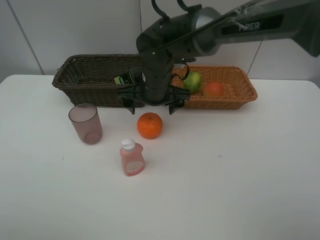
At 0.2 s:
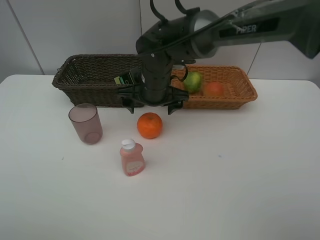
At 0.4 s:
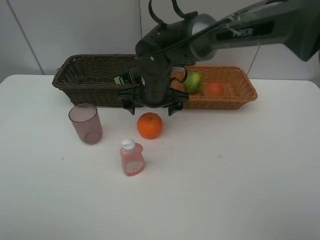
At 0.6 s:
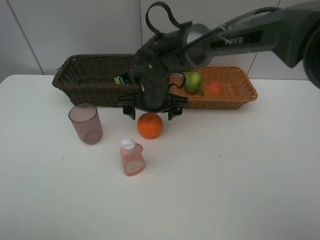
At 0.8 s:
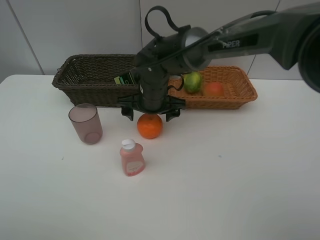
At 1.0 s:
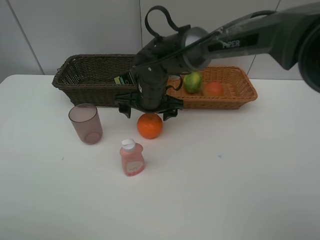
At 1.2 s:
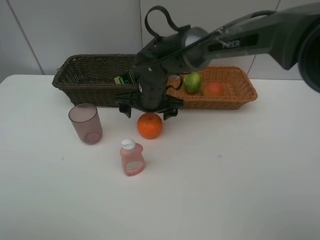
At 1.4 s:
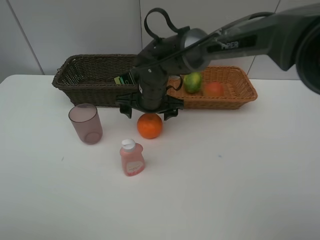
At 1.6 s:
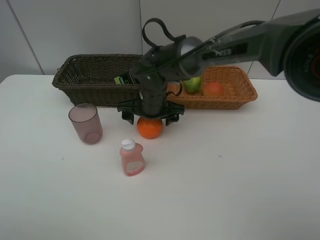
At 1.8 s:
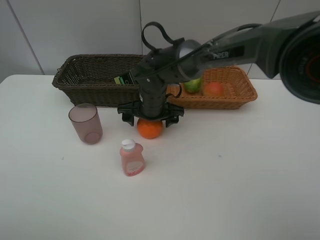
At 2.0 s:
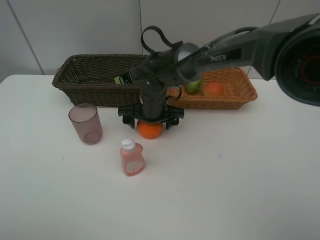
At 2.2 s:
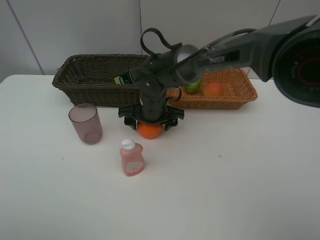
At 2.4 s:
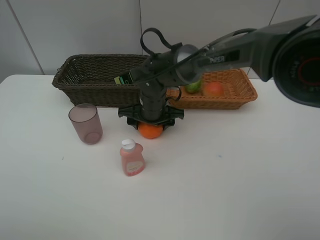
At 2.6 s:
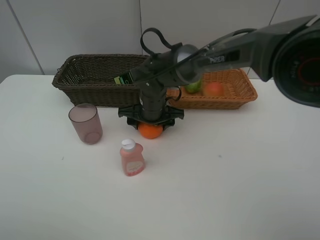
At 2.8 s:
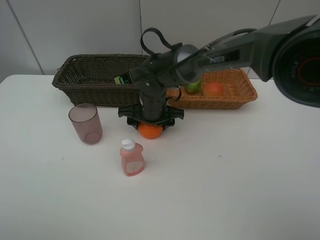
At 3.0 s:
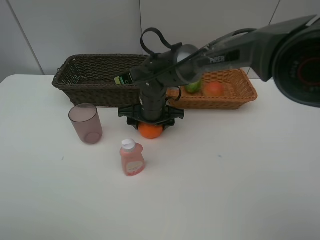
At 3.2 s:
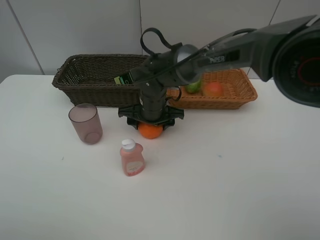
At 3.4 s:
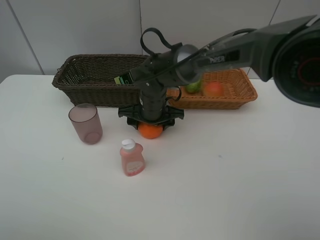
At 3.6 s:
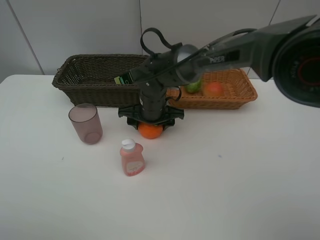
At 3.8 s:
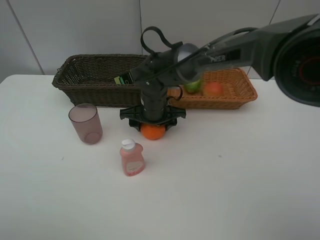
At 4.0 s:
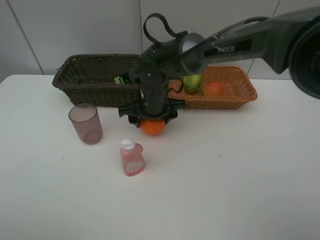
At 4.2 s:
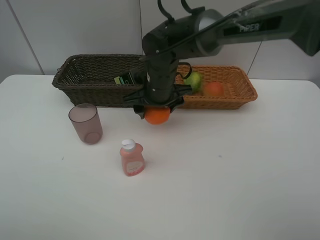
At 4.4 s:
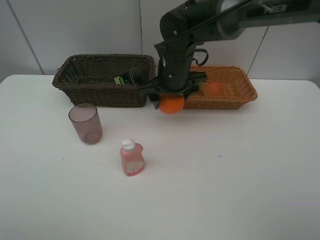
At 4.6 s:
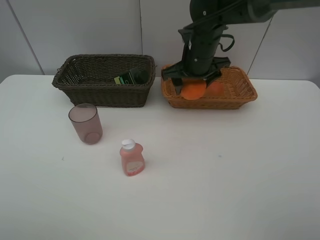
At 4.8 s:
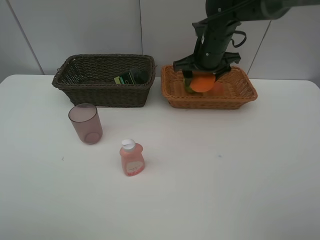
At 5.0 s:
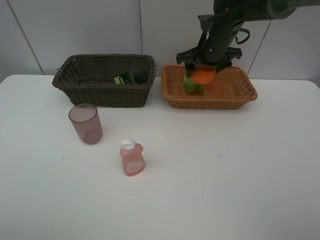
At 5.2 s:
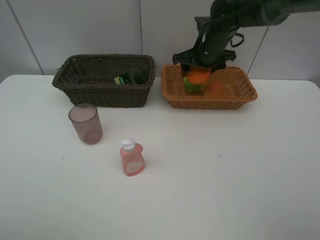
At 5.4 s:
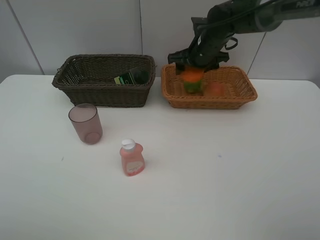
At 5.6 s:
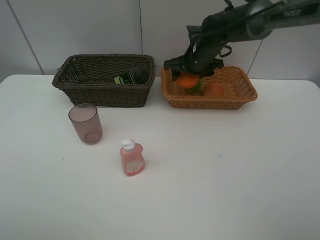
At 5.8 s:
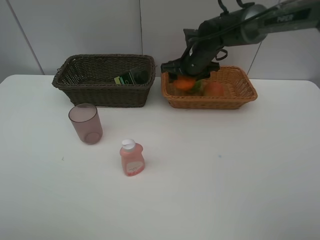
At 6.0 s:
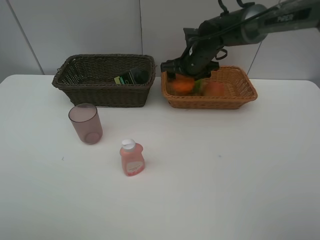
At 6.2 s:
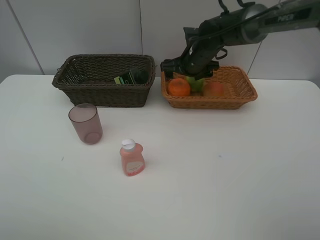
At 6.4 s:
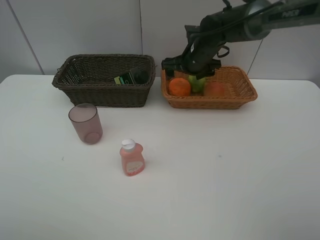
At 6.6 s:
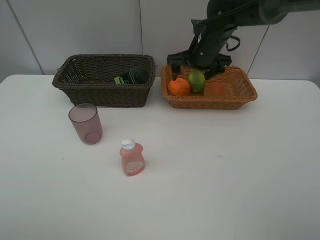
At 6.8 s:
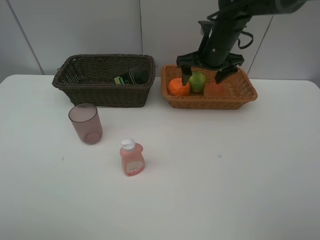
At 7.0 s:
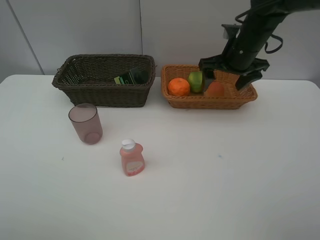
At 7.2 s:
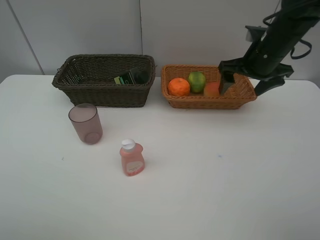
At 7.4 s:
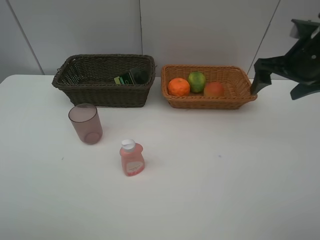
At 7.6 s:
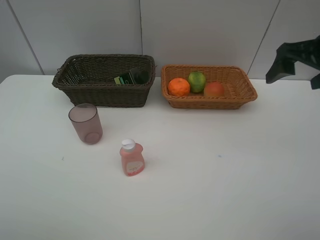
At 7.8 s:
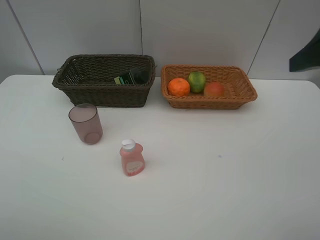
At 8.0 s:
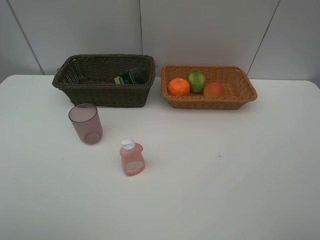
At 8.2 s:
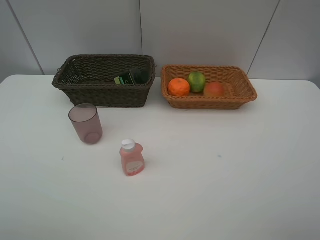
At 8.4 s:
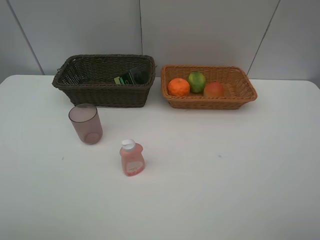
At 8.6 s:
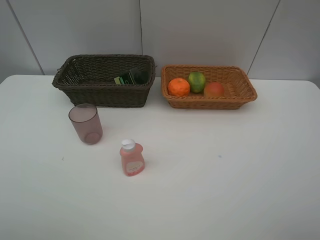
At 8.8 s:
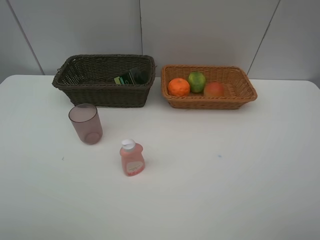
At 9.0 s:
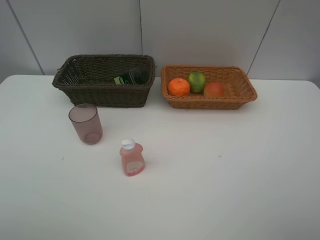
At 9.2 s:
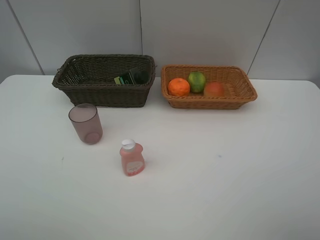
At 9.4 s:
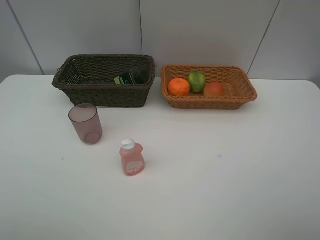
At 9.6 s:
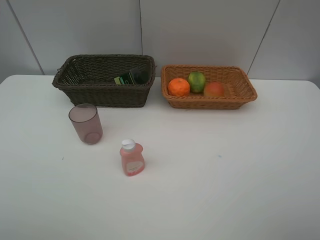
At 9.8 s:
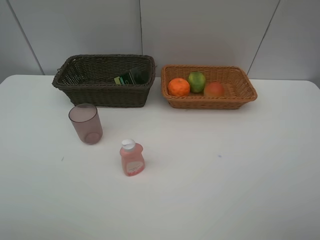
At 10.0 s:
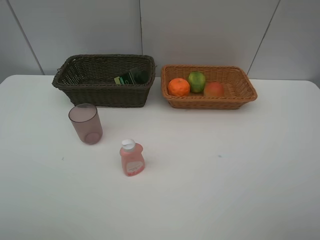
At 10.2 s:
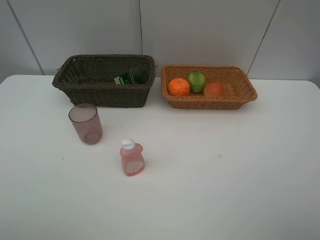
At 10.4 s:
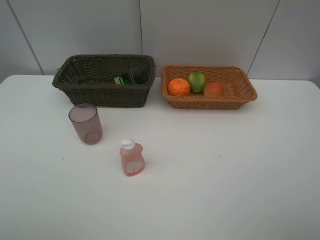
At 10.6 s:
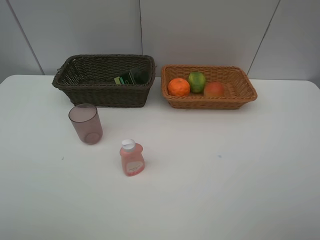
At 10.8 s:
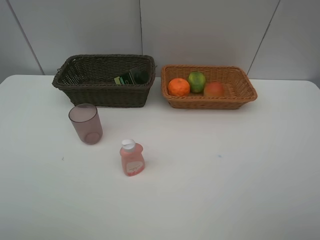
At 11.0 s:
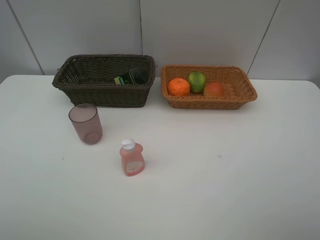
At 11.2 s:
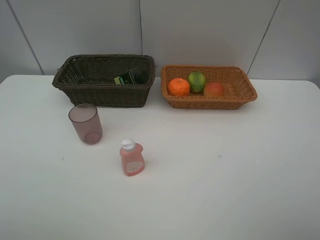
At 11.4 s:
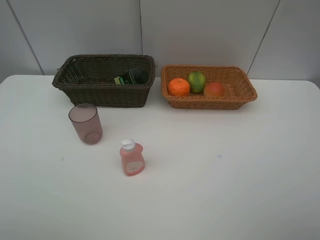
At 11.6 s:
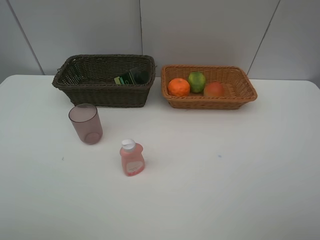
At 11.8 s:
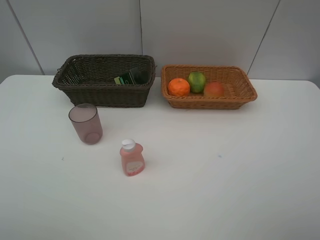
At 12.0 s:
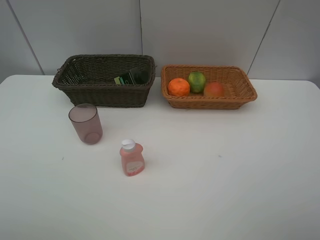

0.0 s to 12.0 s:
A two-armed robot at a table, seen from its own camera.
Task of the whole recording: place multiple objects separately in different baskets.
0.0 to 1.6 s: The right gripper is displaced downward by some 5 cm.
1.6 to 3.0 s: The right gripper closes its fingers.
3.0 to 4.4 s: The right gripper shifts some 10 cm upward and to the right.
4.4 to 6.0 s: The right gripper goes approximately 10 cm forward and to the right.
6.0 to 7.6 s: The right gripper moves backward, to the right and upward, roughly 30 cm.
7.6 to 9.0 s: The right gripper moves backward, some 25 cm.

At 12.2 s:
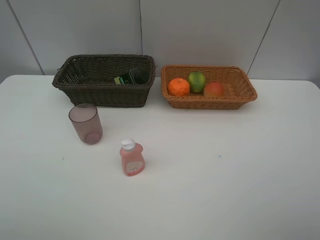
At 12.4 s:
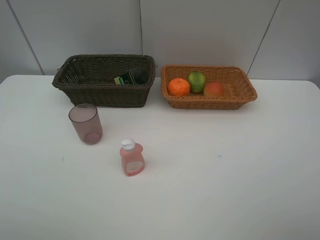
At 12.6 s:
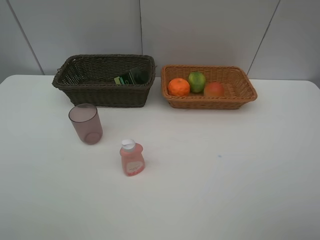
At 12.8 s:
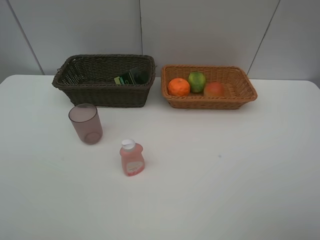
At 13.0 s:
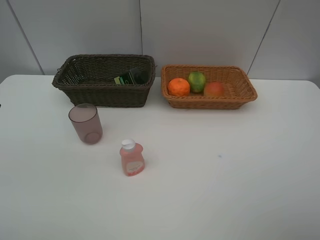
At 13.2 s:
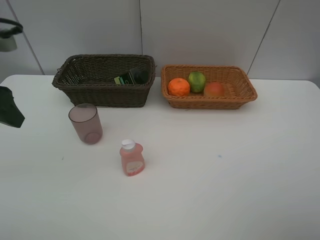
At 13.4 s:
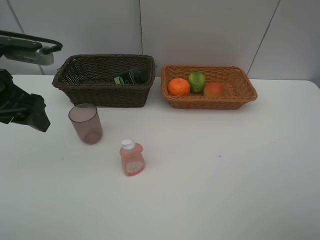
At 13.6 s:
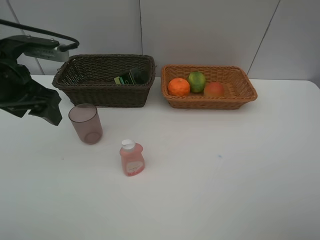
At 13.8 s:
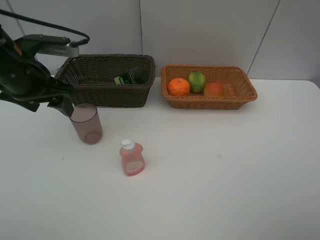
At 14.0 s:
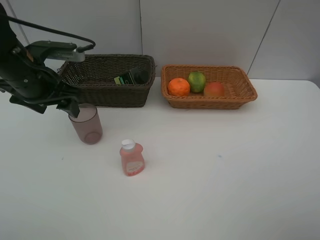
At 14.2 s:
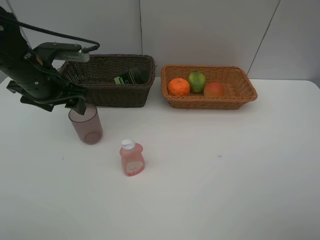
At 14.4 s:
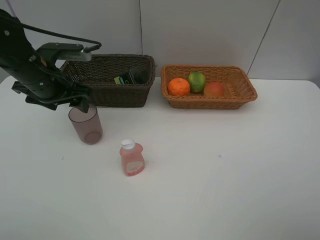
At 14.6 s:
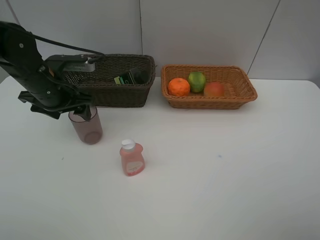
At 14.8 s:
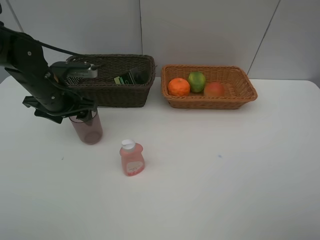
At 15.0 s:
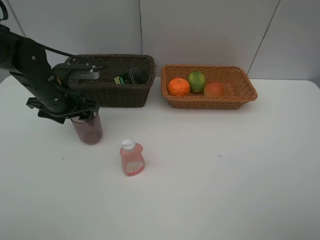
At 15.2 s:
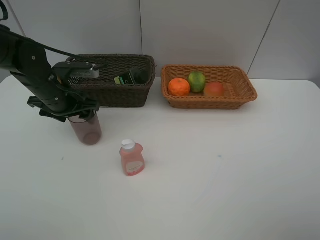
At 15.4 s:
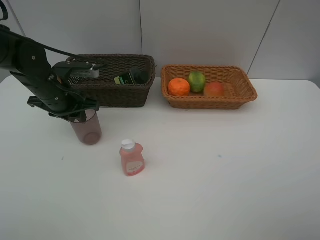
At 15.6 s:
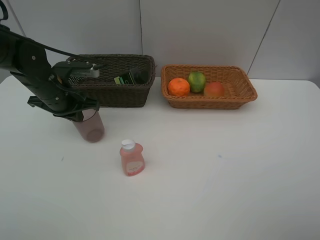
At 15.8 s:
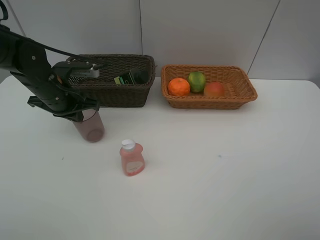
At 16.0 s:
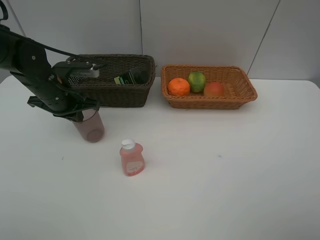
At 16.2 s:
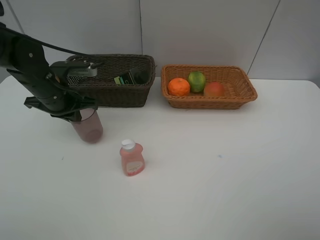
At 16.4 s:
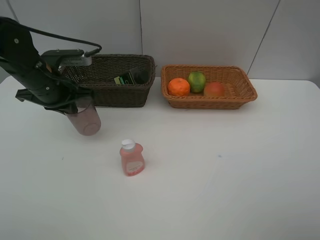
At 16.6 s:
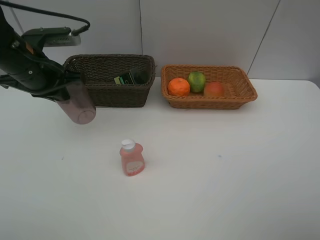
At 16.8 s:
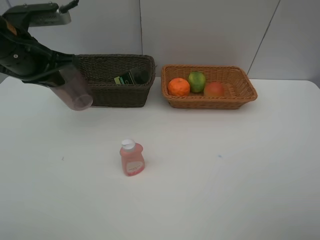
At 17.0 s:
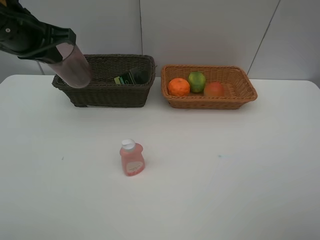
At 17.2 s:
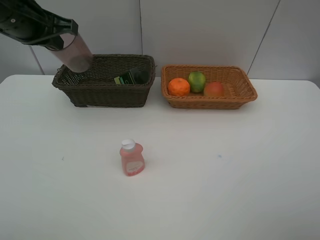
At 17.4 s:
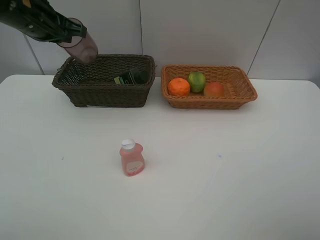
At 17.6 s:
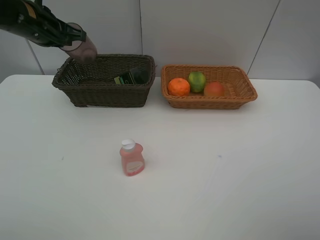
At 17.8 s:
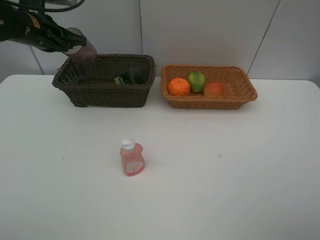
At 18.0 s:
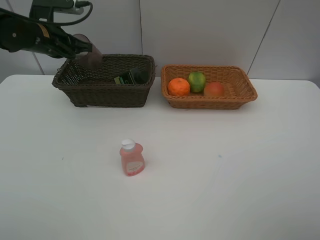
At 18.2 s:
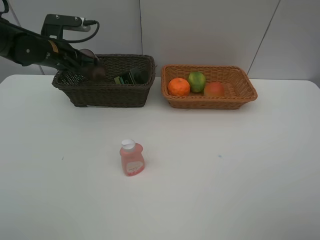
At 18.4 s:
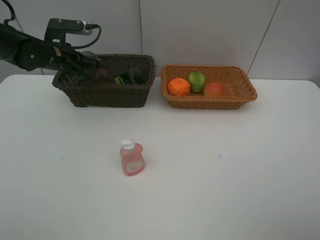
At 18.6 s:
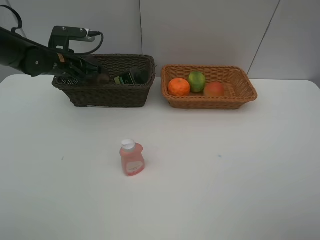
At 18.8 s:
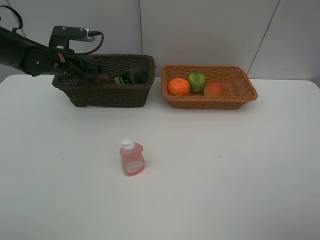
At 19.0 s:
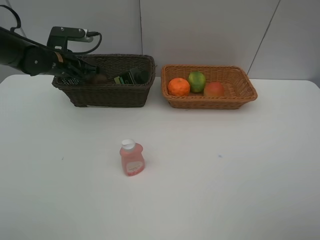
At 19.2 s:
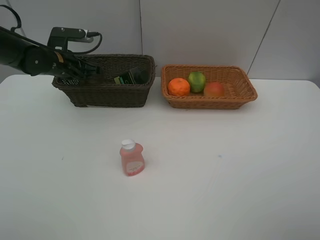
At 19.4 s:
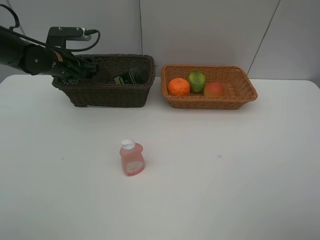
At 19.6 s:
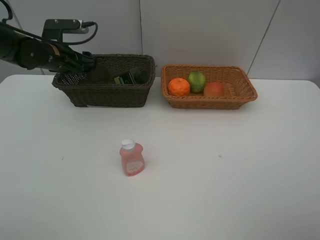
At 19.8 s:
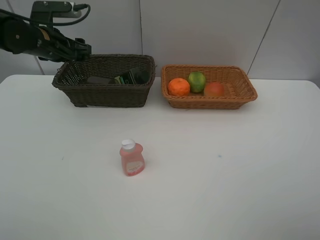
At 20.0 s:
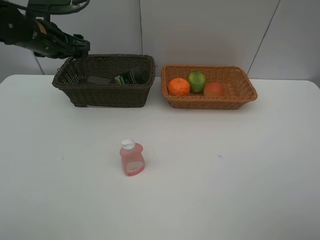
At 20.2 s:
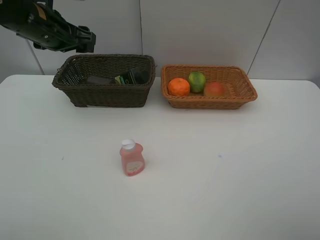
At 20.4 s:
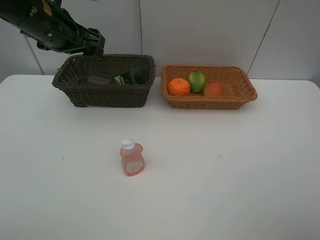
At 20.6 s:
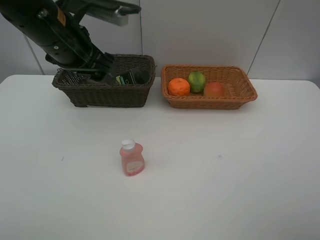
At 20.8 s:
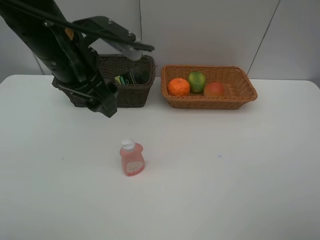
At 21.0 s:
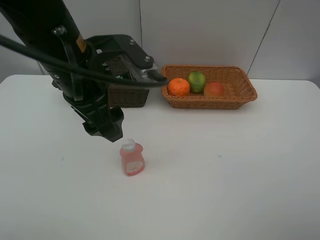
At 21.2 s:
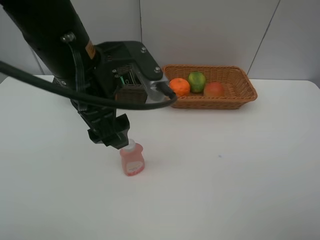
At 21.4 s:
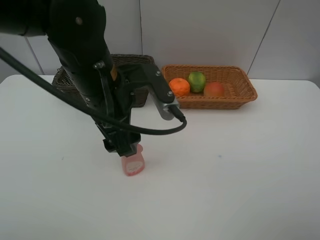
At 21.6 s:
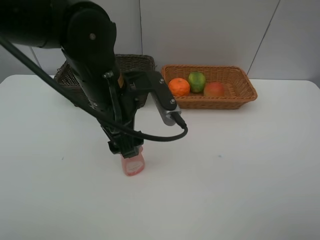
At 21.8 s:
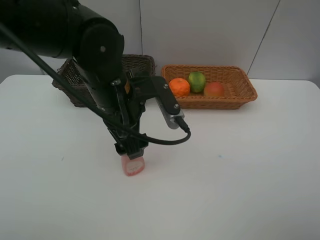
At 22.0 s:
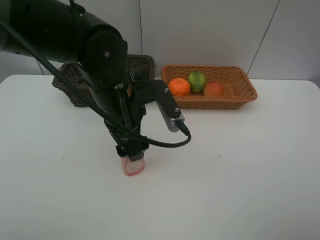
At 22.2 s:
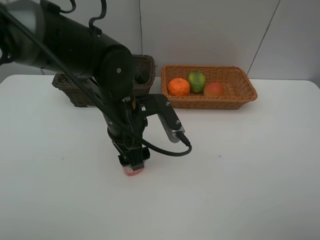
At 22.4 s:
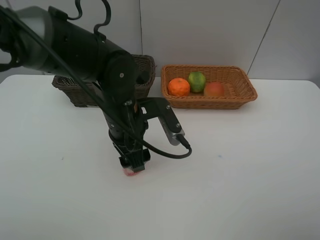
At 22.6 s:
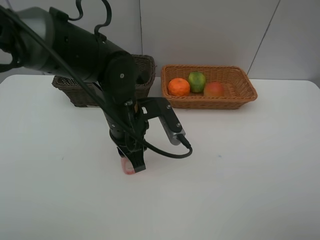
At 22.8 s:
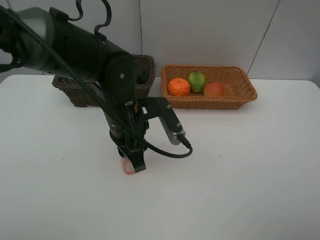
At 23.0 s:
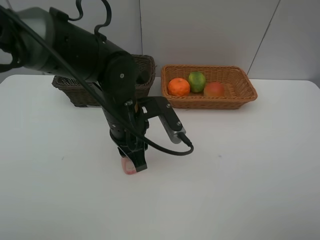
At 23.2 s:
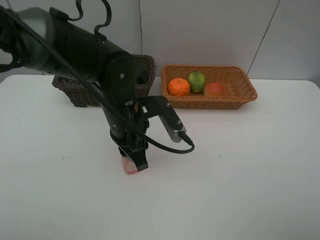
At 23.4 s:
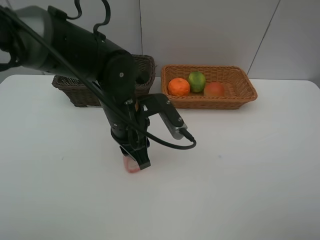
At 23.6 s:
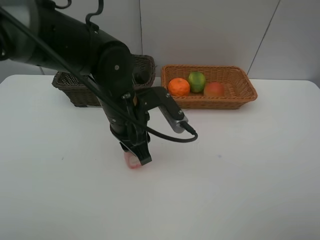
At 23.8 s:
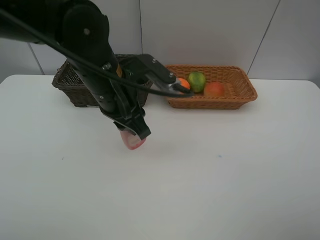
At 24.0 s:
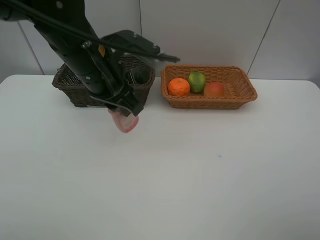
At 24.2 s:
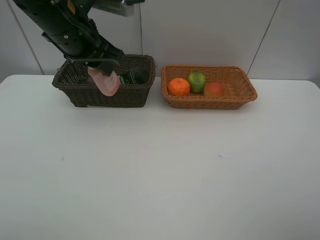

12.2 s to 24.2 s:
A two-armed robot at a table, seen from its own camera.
Task of the whole recording: place multiple objects separately in different baskets.
12.2 to 13.8 s: The left gripper heads forward, covering about 30 cm.
13.8 to 15.2 s: The left gripper heads downward, covering some 10 cm.
15.2 to 16.6 s: The left gripper heads upward, covering roughly 10 cm, and closes.
16.6 to 18.2 s: The left gripper shifts approximately 10 cm forward and downward.
18.2 to 19.8 s: The left gripper opens up.
19.8 to 21.2 s: The left gripper heads backward and to the right, covering roughly 25 cm.
21.2 to 22.6 s: The left gripper moves downward, roughly 10 cm, and closes up.
22.6 to 24.2 s: The left gripper shifts approximately 15 cm upward, to the left and forward.
